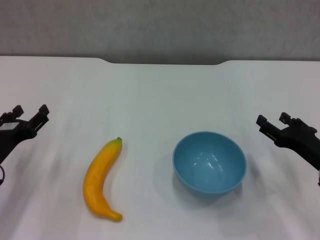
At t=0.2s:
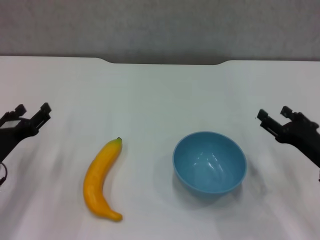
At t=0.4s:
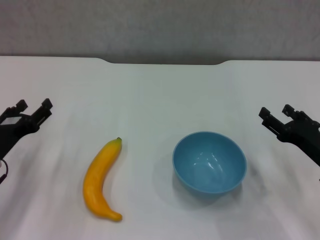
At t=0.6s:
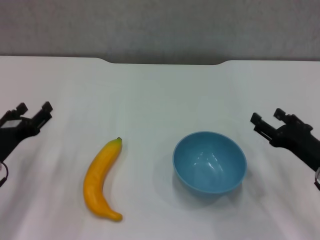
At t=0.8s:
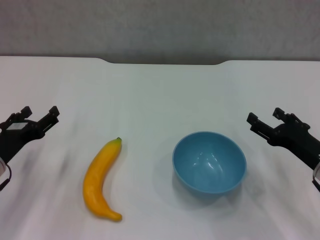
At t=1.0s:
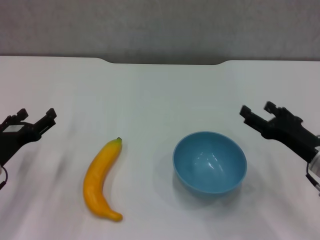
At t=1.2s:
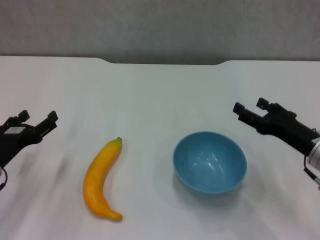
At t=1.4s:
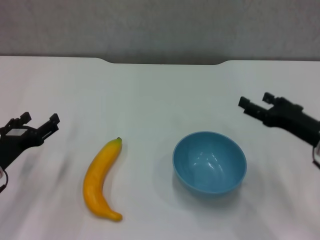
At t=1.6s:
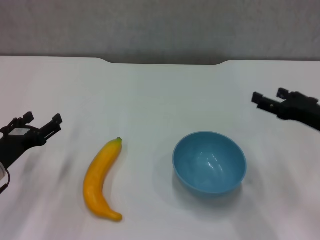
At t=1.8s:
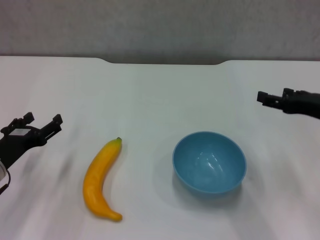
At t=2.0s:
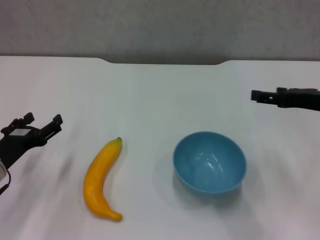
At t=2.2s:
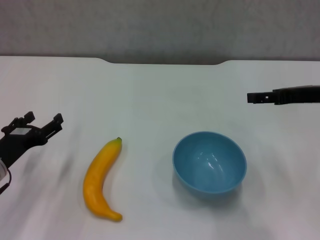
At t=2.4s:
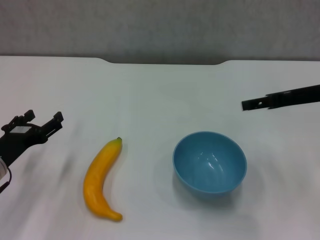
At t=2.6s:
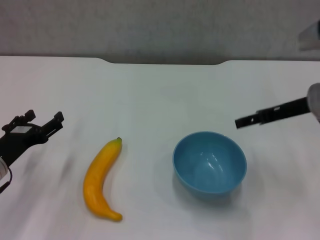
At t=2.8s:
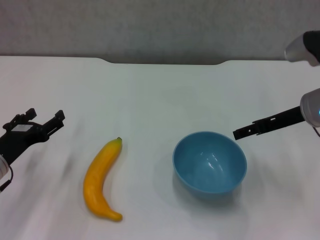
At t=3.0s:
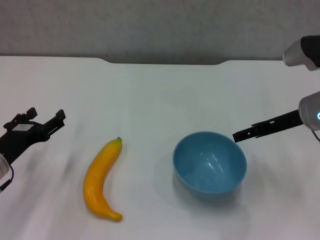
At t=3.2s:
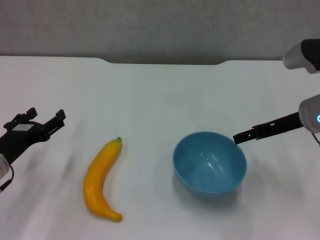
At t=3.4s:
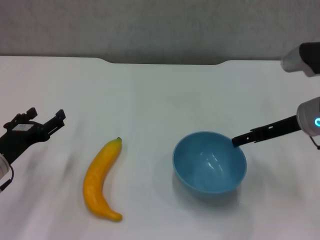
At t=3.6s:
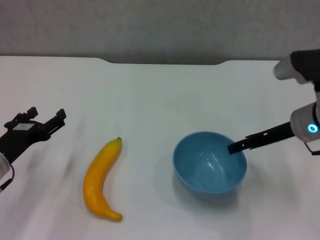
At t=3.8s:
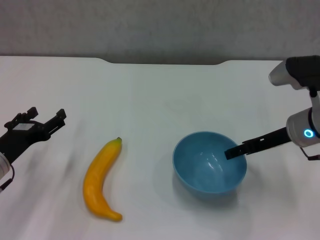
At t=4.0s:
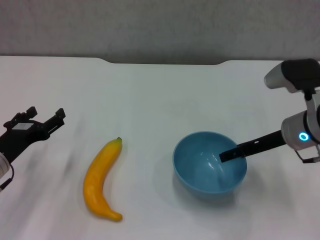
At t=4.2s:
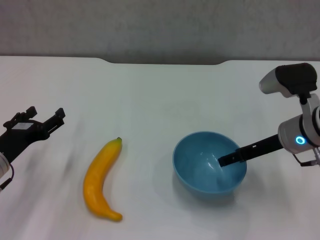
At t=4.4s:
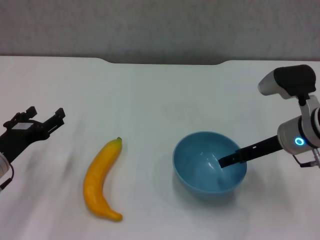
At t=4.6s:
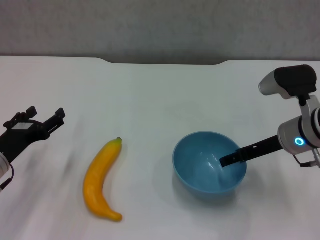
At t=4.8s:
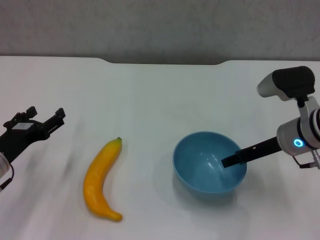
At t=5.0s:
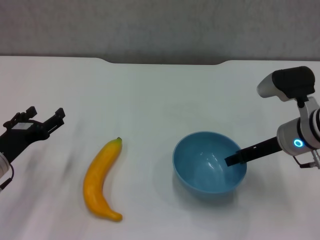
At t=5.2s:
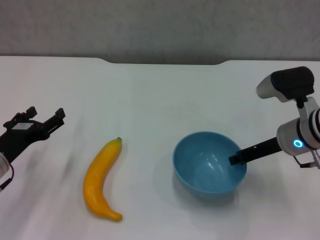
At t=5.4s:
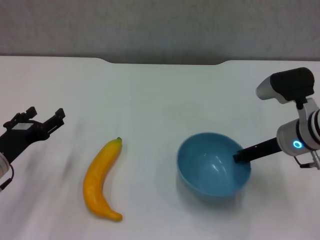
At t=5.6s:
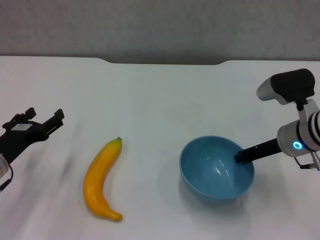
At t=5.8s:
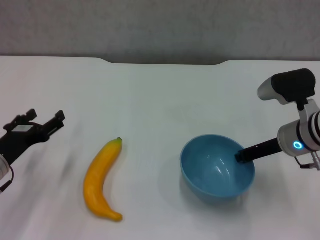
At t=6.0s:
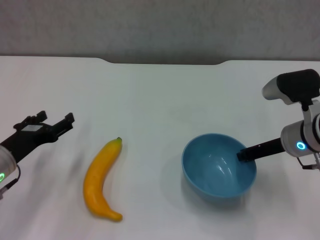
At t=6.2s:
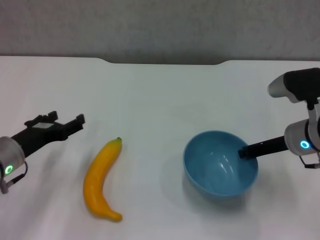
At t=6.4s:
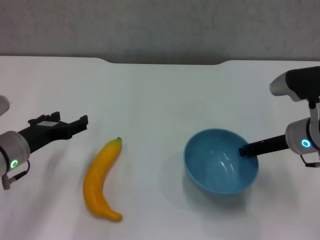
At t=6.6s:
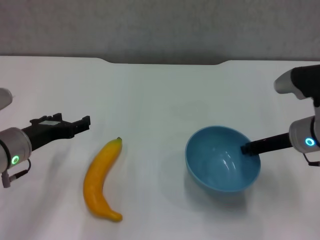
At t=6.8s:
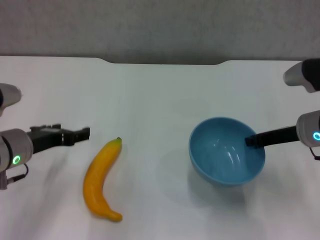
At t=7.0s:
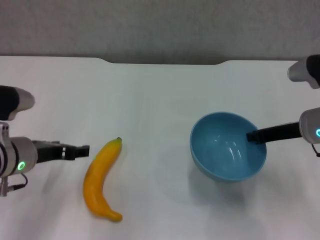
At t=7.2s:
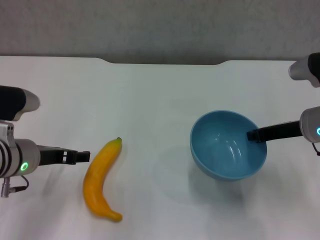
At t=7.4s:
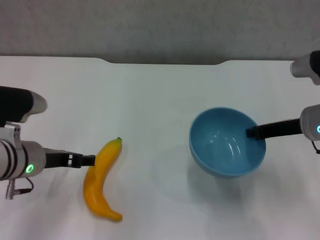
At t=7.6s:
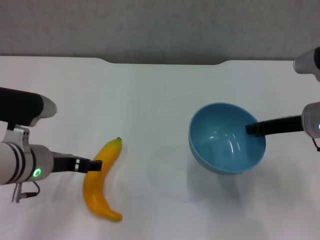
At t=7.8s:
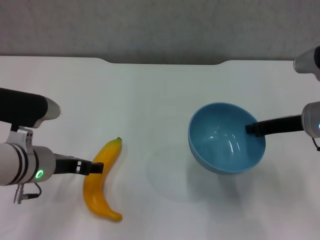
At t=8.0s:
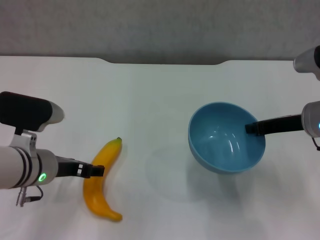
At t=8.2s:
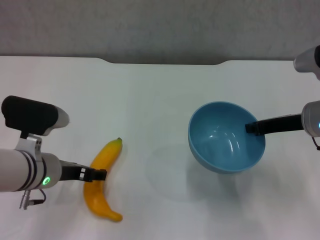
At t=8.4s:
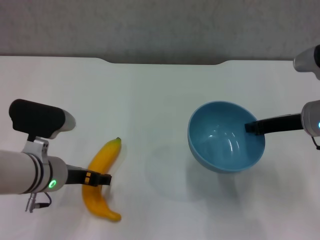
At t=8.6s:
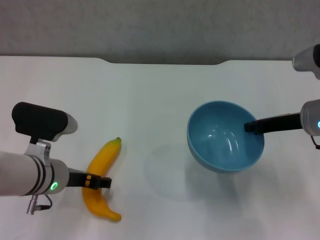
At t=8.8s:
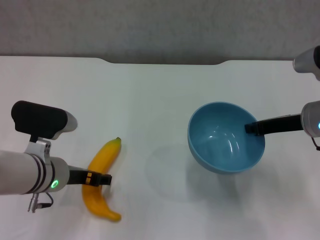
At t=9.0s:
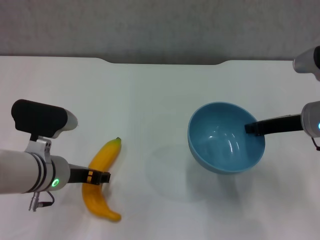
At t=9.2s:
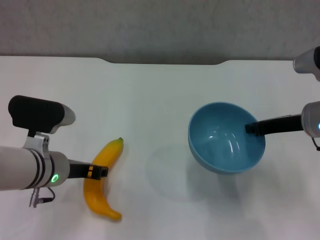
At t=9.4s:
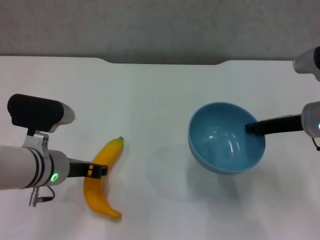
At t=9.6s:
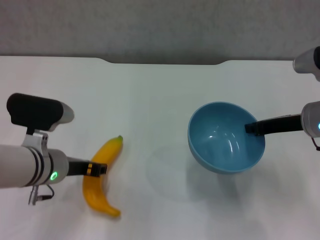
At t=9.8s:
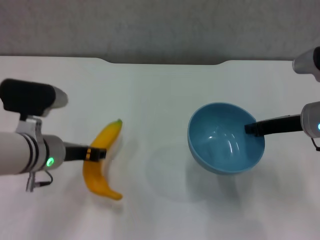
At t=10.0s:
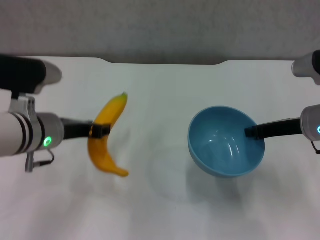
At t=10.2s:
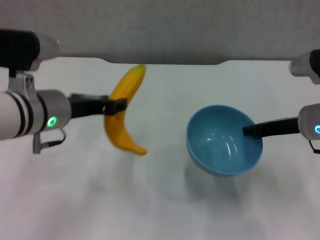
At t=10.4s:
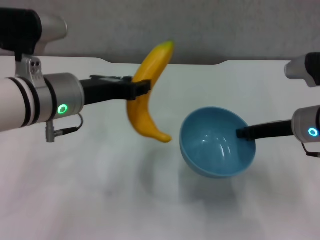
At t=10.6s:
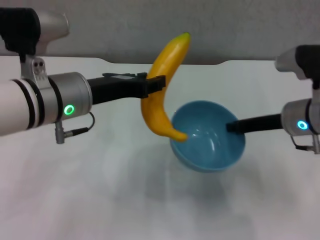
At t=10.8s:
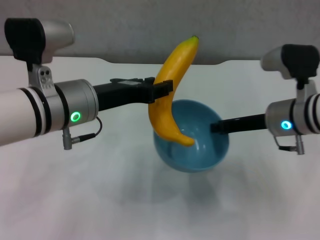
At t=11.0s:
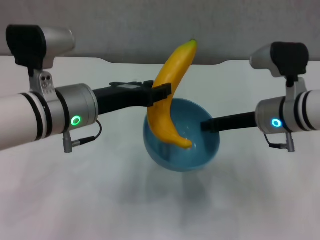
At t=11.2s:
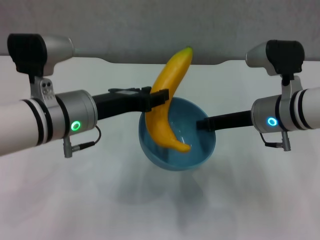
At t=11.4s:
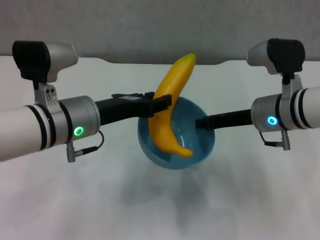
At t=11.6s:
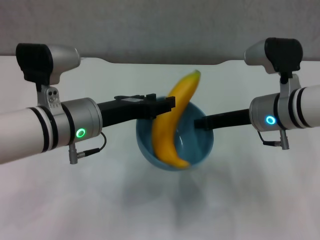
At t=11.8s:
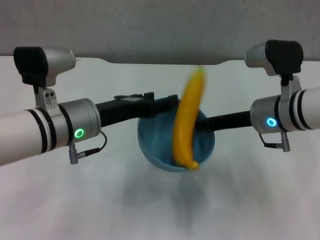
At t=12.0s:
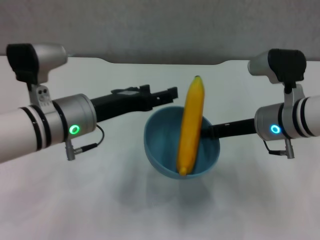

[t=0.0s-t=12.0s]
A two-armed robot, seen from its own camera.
Step, t=0.0s to t=5.4s: Grasp the blue bowl with right gripper.
Step, t=5.8s to t=6.8s: Lift the blue bowl with right gripper.
Step, t=7.2s to t=9.4s: Grasp the banana with left gripper.
Step, t=9.6s to t=11.6s: Place the banana in the blue bowl with left gripper.
t=0.0s to t=1.6s: The right gripper goes some 5 cm upward.
t=1.6s to t=3.0s: The right gripper shifts about 5 cm forward.
t=3.0s to t=4.4s: The grippers make only small movements.
t=4.4s to t=6.0s: The right gripper closes its fingers.
t=6.0s to t=7.6s: The left gripper is displaced to the right by roughly 5 cm.
t=7.6s to t=9.0s: The grippers move only a little.
t=9.0s to t=10.4s: The left gripper is displaced upward by about 10 cm, and closes its fingers.
t=10.4s to t=12.0s: The left gripper opens its fingers, while the right gripper moves to the left, some 5 cm.

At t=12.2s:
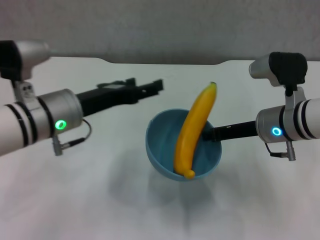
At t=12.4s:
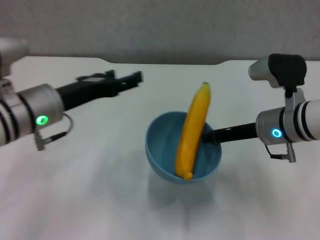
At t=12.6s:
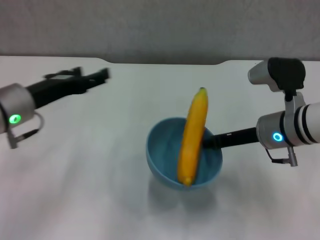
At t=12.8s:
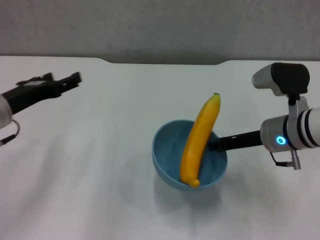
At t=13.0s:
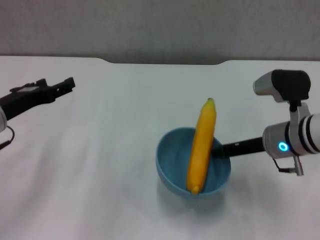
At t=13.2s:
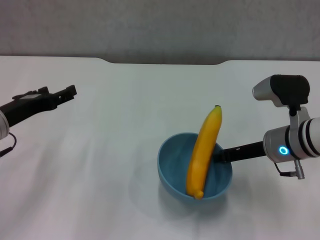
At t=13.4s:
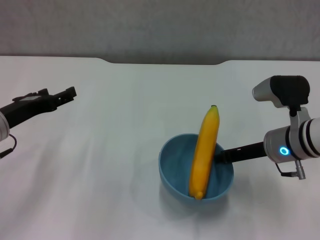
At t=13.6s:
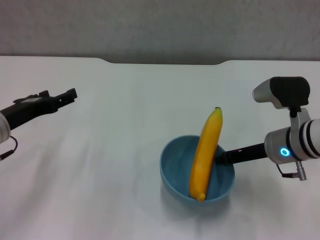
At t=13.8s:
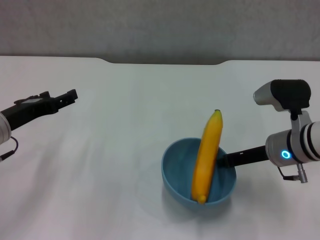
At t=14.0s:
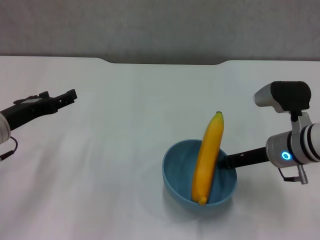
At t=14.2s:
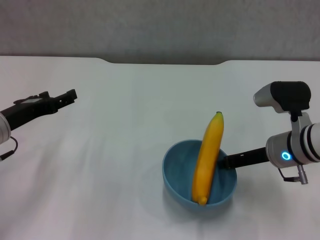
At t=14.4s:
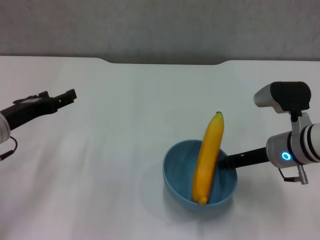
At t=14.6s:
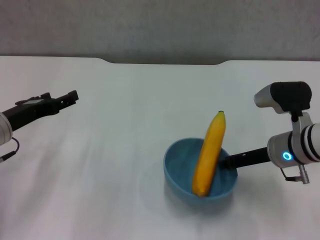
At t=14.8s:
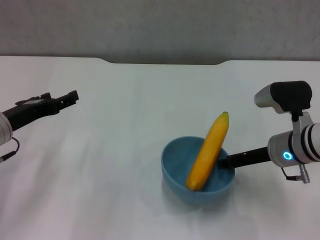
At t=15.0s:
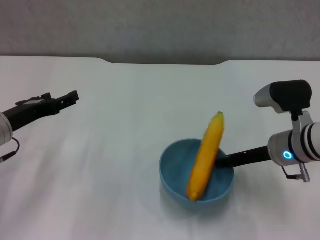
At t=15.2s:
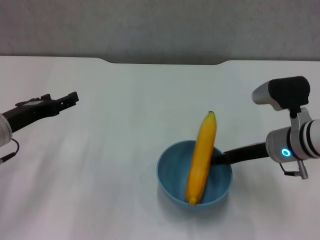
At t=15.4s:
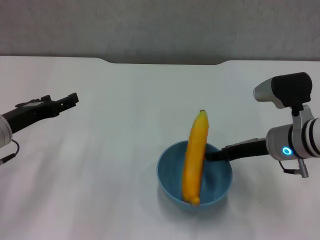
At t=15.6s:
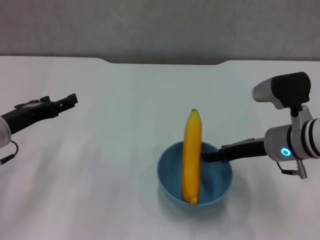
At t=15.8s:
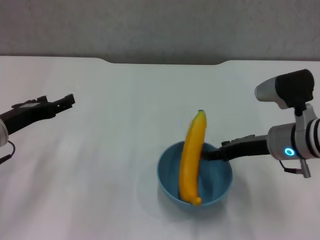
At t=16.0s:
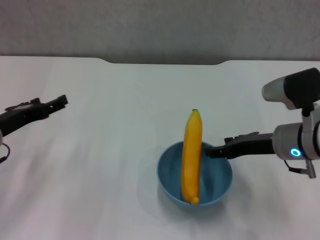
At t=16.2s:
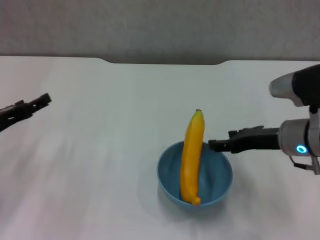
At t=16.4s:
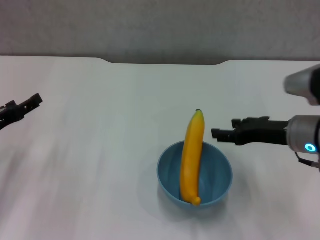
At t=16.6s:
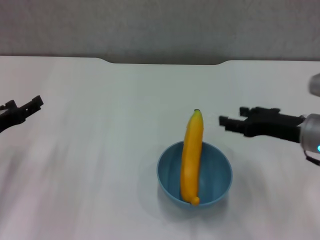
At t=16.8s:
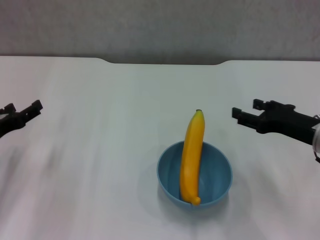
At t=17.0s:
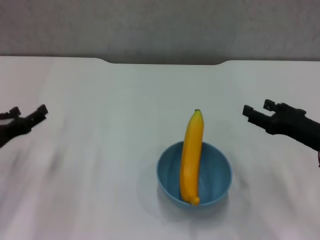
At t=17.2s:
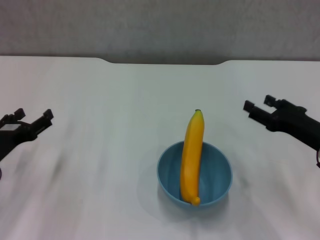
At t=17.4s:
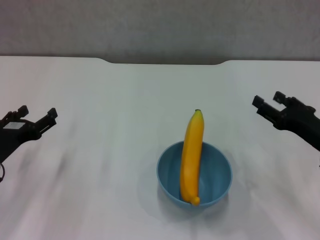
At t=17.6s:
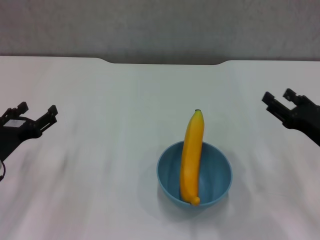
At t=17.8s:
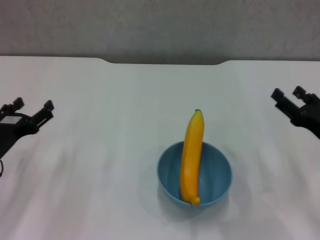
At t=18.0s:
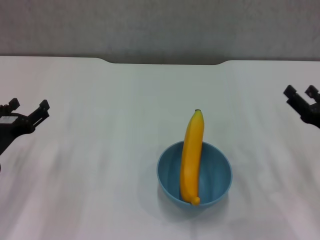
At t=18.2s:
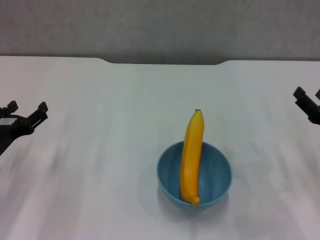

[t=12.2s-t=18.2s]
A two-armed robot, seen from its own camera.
Step, t=12.2s to t=15.2s: Place the bowl on the table with right gripper.
t=12.2s to t=13.8s: The left gripper heads to the left, covering some 10 cm.
t=13.8s to t=15.2s: The right gripper opens up.
t=15.2s to t=16.6s: The left gripper moves some 5 cm. The right gripper moves about 5 cm, and opens.
t=16.6s to t=18.2s: The right gripper shifts roughly 10 cm to the right and downward.
